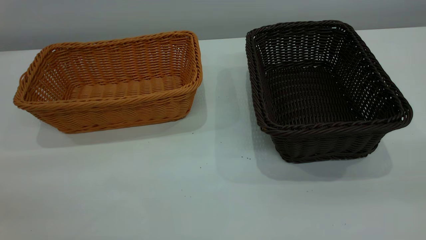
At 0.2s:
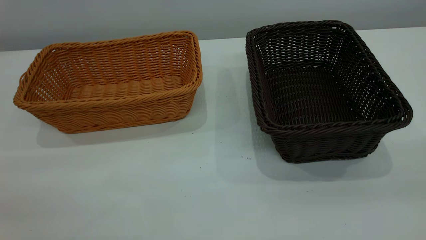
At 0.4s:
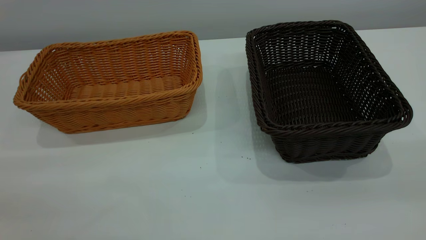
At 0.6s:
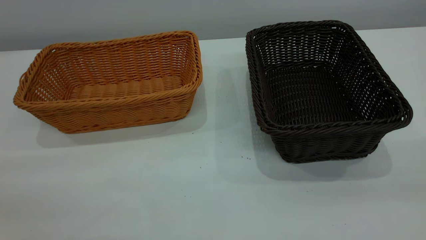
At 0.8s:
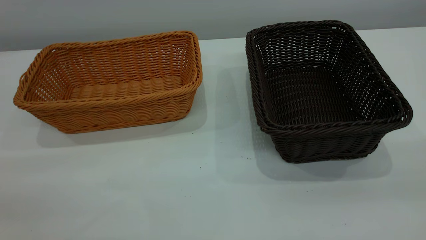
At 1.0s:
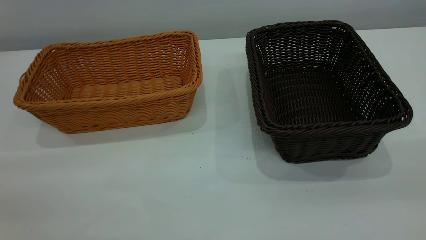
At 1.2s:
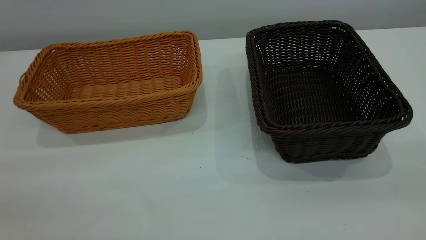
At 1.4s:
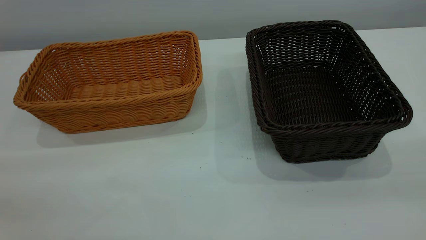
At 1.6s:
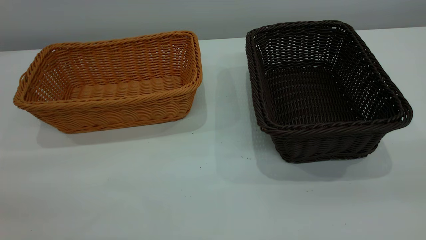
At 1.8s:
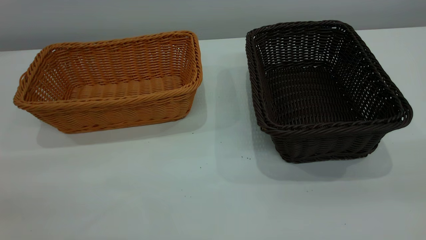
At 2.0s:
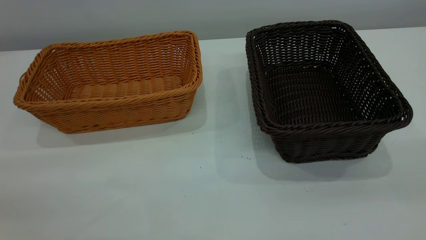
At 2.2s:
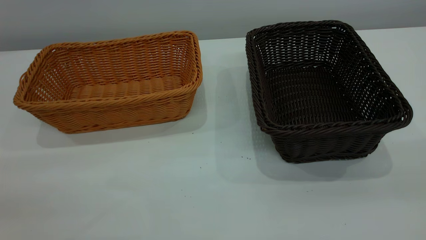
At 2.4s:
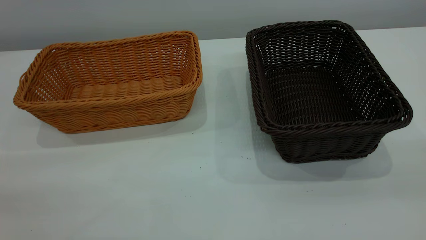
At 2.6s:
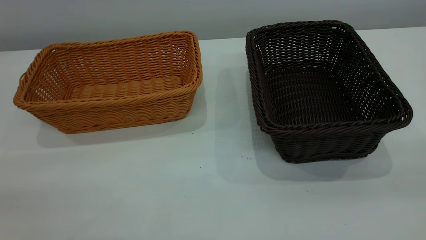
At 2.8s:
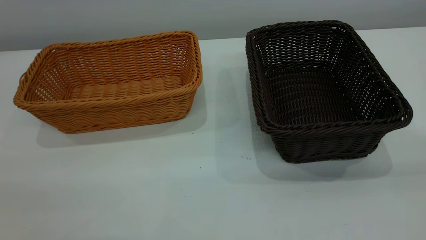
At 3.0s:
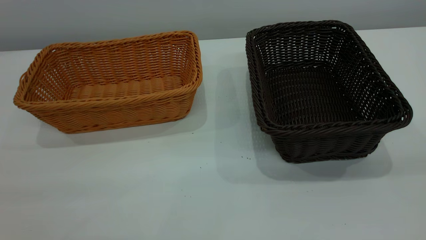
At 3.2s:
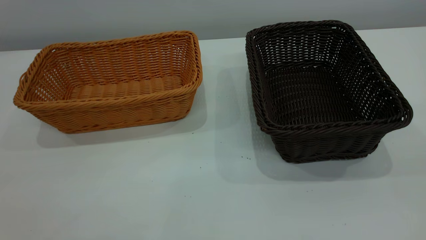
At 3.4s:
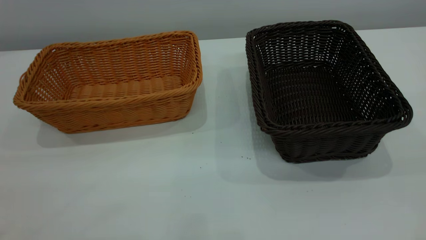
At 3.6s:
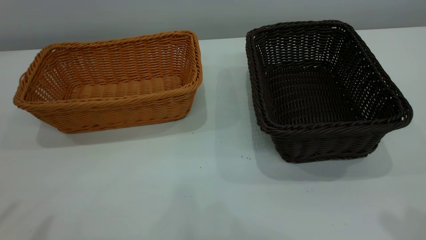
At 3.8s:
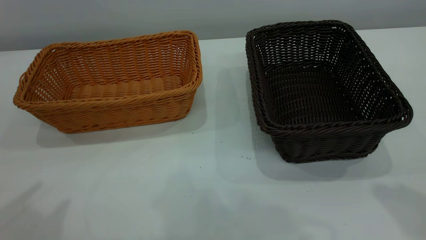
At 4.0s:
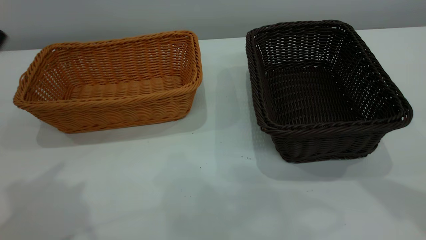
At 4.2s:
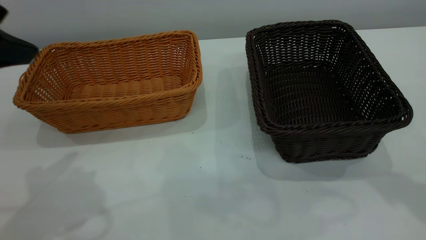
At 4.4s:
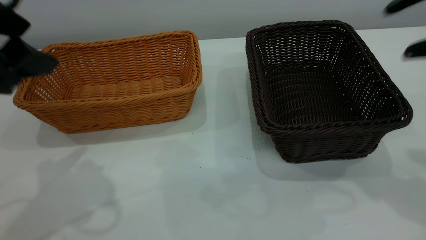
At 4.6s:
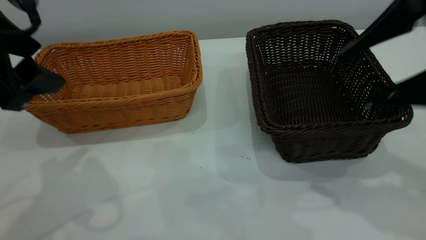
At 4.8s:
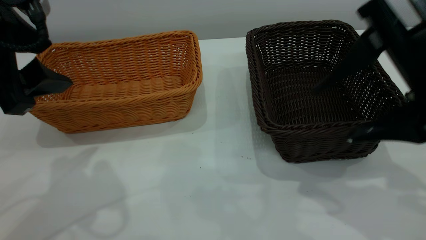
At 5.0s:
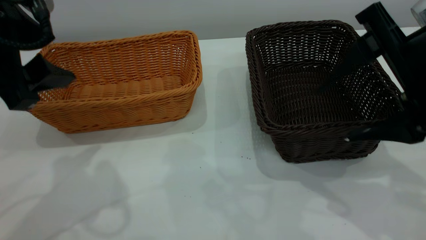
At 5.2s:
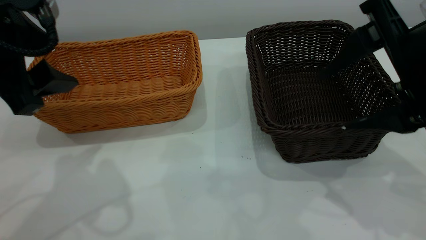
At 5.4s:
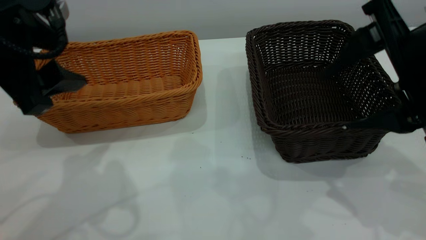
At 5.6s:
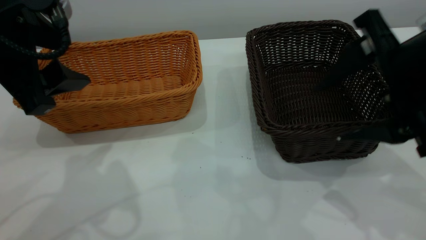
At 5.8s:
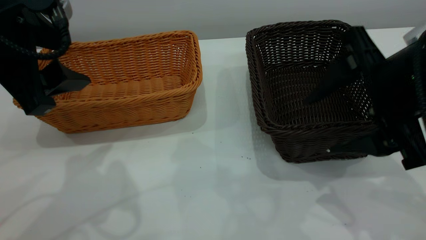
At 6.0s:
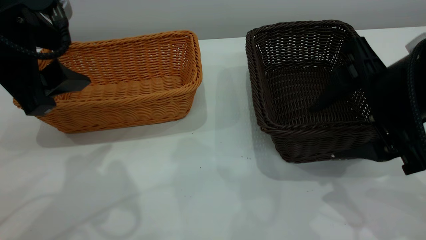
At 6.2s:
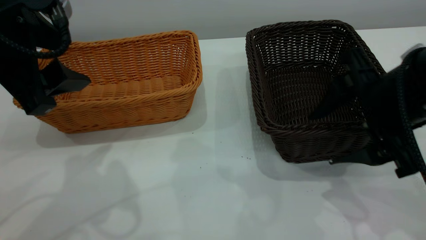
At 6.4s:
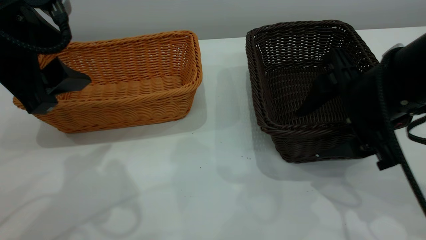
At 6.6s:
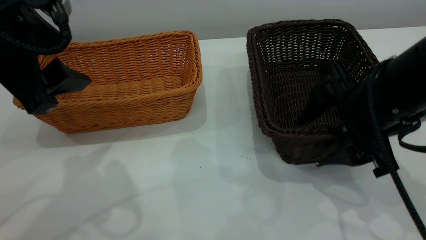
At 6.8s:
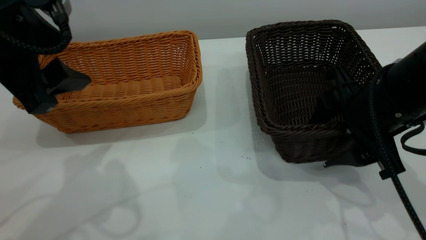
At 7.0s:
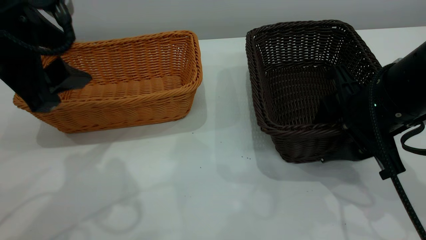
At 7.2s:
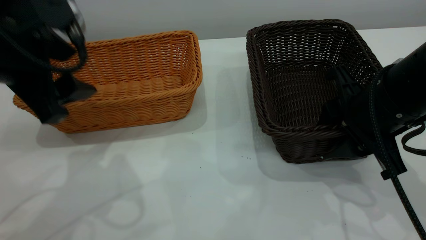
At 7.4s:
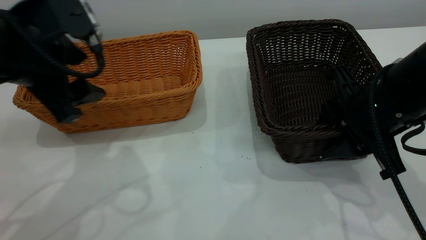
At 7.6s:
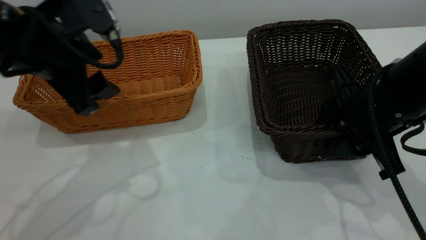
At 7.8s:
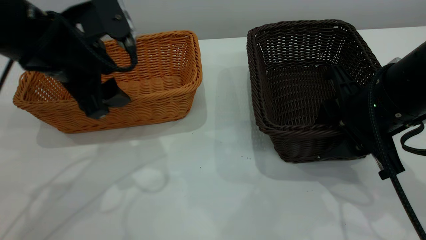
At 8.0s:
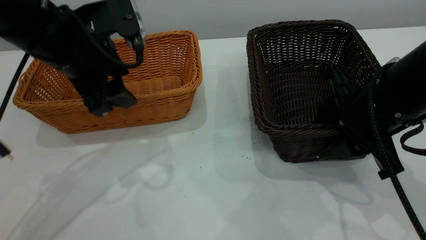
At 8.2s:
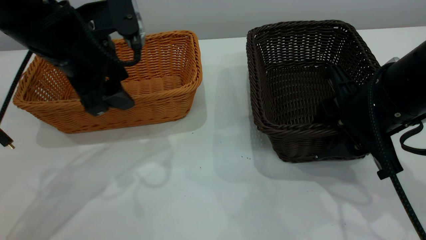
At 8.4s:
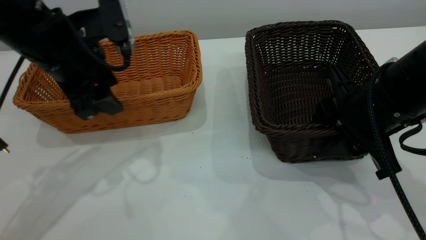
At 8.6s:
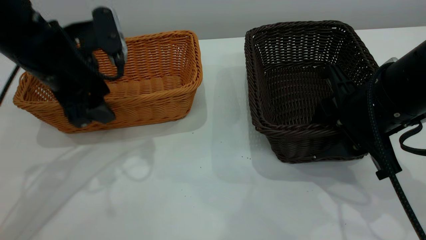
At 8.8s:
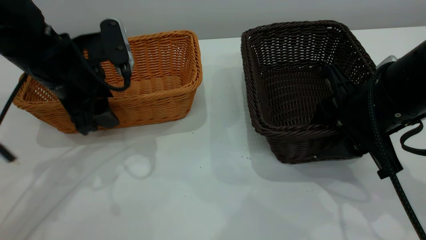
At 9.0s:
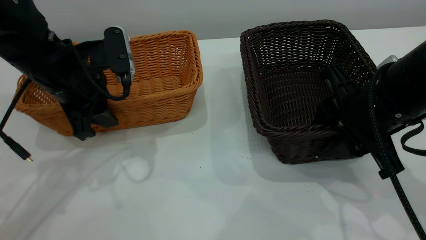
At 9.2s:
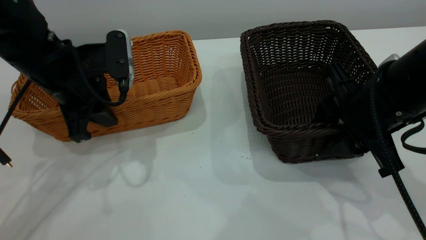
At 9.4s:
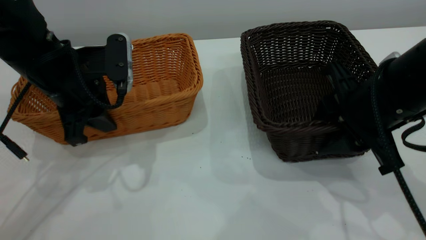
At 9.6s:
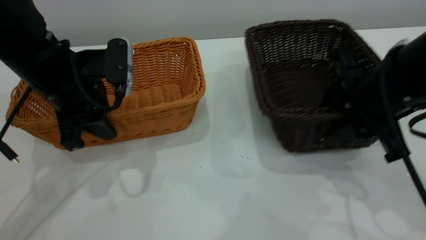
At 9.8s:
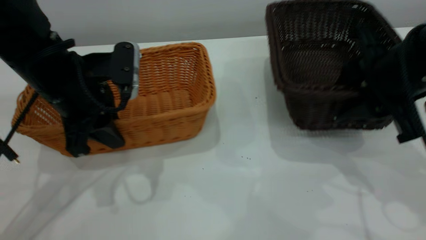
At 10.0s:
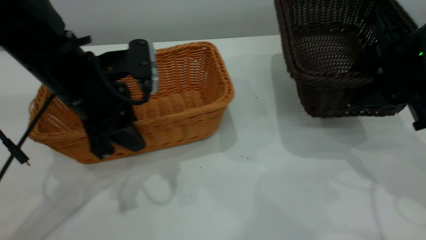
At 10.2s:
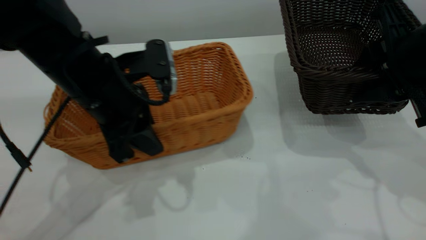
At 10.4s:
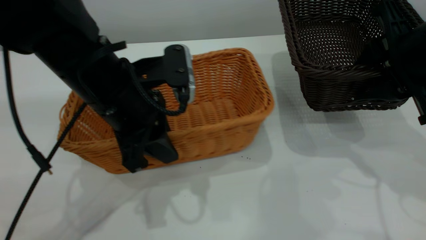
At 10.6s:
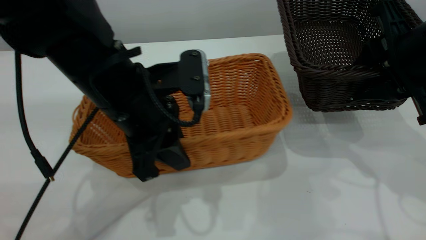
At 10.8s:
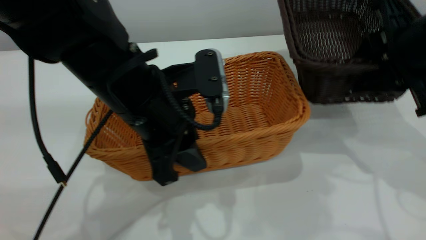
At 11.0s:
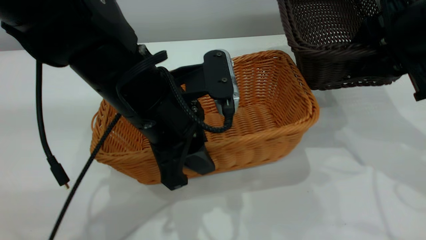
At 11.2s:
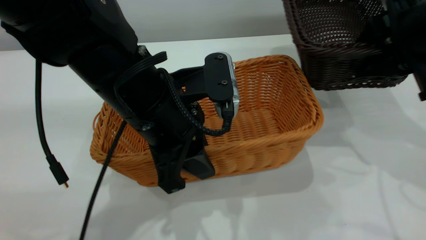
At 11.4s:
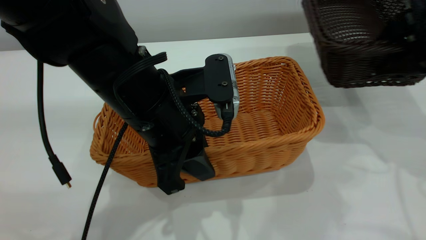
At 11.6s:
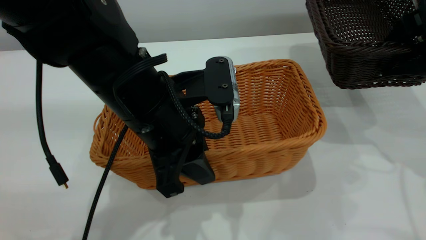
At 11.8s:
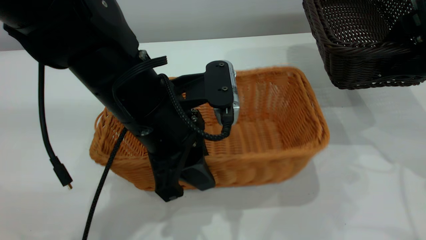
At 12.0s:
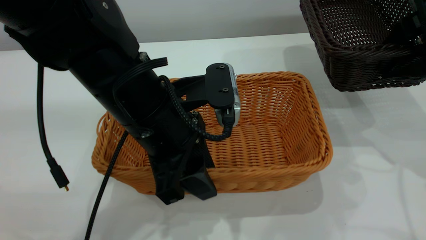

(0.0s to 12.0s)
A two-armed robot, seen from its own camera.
Task of the whole recording: the left gripper grasp the brown basket and place it in the center of the table, the right gripper grasp the black basket and place it inside the brown one.
Step, 0.0s - 9.8s: Pick up the light basket with the right gripper.
0.0s - 1.6s: Both grippers stay about where they are.
3.0s - 4.4s: Both grippers move forward and downward, about 20 cm. The right gripper opens its fingers. The left gripper opens its fingers.
4.4s - 6.0s: The right gripper shifts roughly 10 cm downward and to the left.
6.0s - 7.6s: The left gripper moves forward, about 5 cm. The right gripper moves about 5 cm, and closes its fingers.
7.6s - 9.0s: The left gripper moves downward, approximately 5 cm, and closes up.
9.0s - 10.4s: The left gripper is displaced to the right and backward by approximately 10 cm. Meanwhile the right gripper moves upward and to the right, approximately 5 cm.
10.4s - 12.0s: The left gripper changes place by roughly 5 cm, and opens its fingers.

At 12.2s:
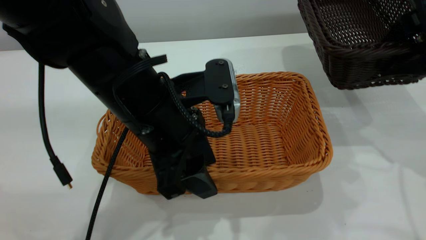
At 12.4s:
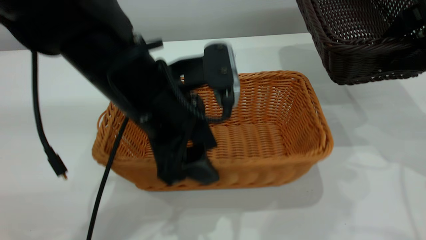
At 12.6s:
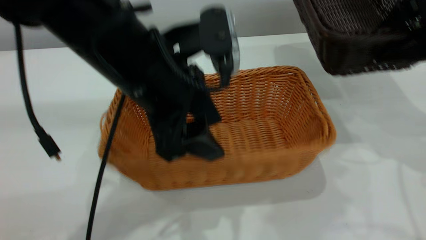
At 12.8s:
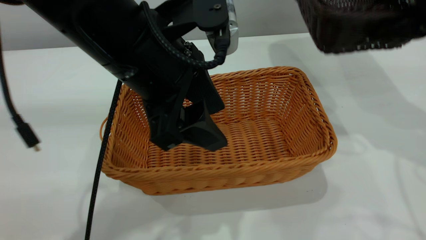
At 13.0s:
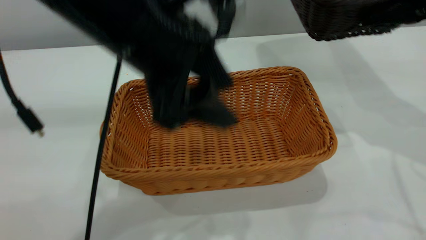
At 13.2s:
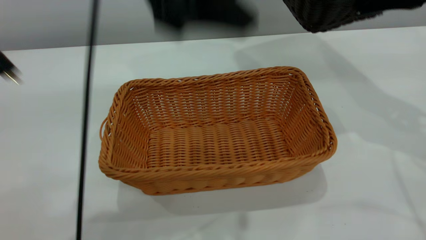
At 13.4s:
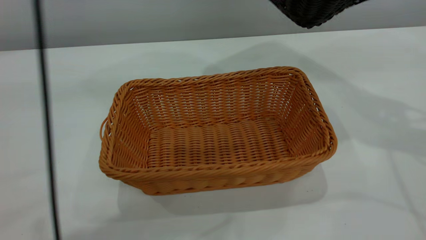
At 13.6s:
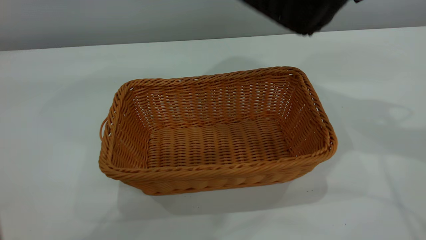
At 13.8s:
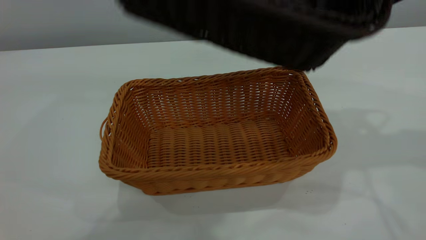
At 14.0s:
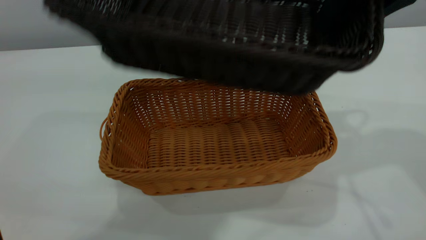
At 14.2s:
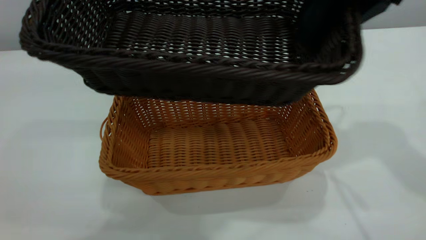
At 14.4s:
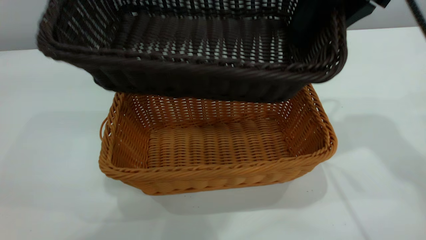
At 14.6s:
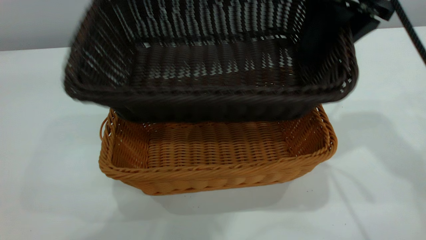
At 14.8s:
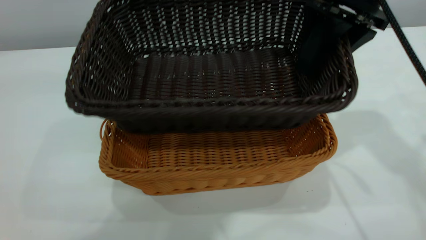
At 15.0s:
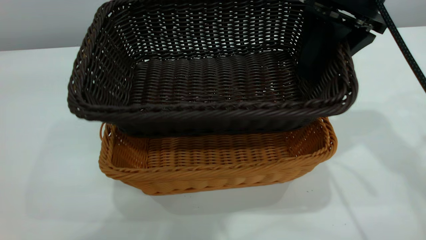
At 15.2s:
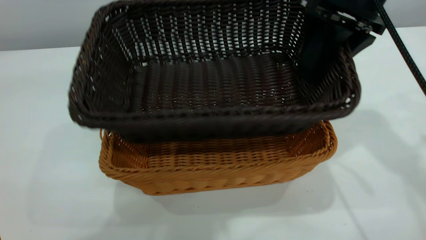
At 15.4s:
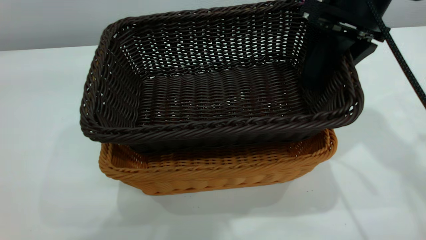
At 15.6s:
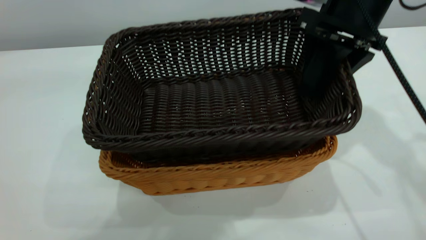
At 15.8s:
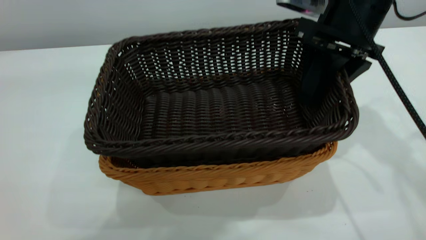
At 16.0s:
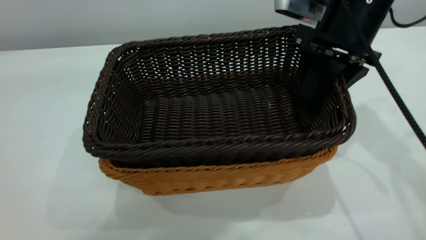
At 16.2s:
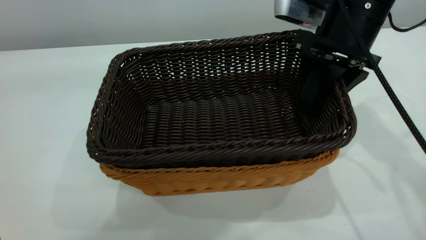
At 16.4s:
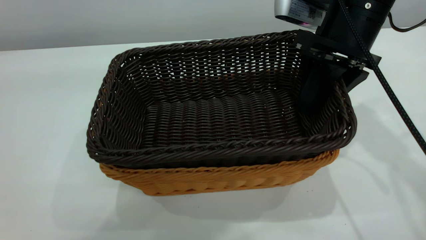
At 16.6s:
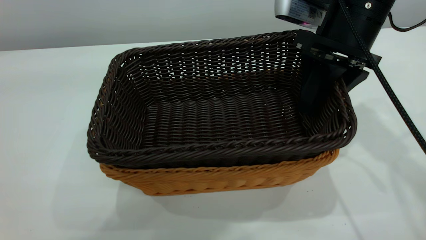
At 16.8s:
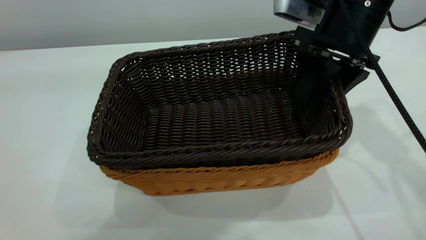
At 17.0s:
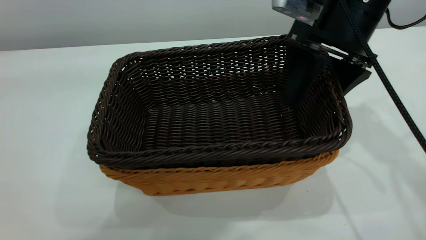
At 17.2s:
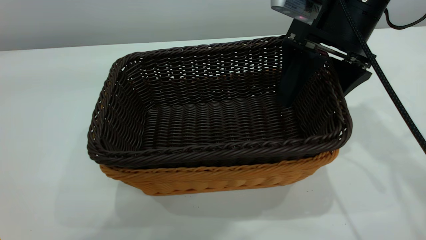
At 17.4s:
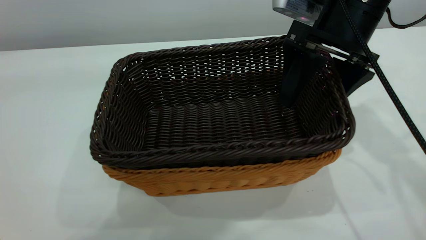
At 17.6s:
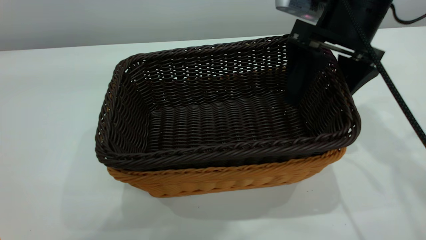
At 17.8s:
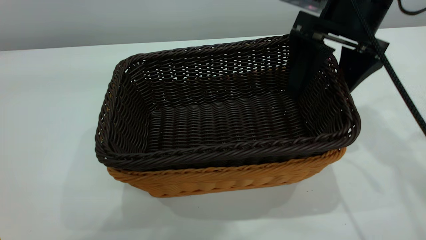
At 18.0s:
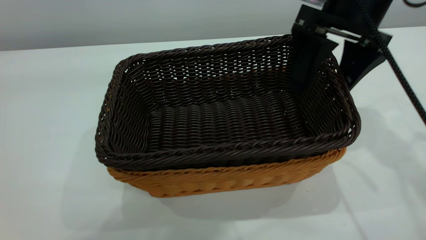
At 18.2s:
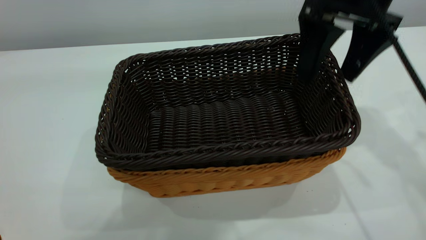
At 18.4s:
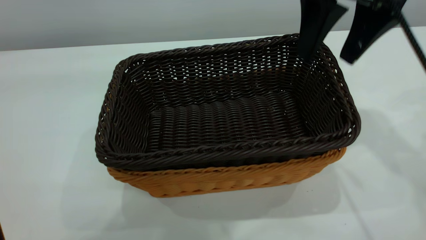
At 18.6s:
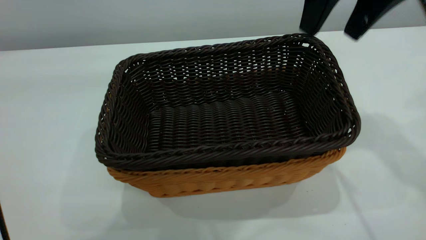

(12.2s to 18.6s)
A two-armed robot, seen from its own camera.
Task of the whole recording: the left gripper grasp the brown basket and place it in the center of the table, the right gripper grasp the black basket and place it inside the brown one.
Step, 13.0s - 18.4s: Place the dark basket on top of the light basket.
12.2s - 13.8s: The left gripper goes roughly 35 cm upward, while the right gripper moves upward and to the left, some 10 cm.
13.8s - 15.4s: The right gripper heads downward, covering approximately 10 cm.
15.4s - 17.0s: The right gripper opens.
17.0s - 18.6s: The right gripper moves upward, roughly 10 cm.
